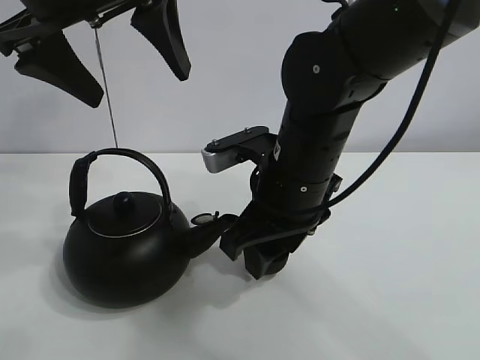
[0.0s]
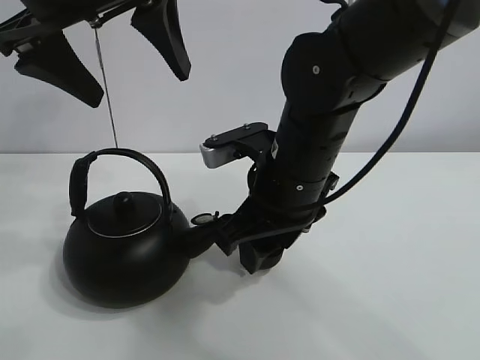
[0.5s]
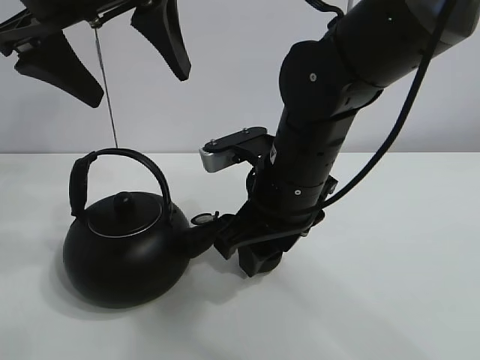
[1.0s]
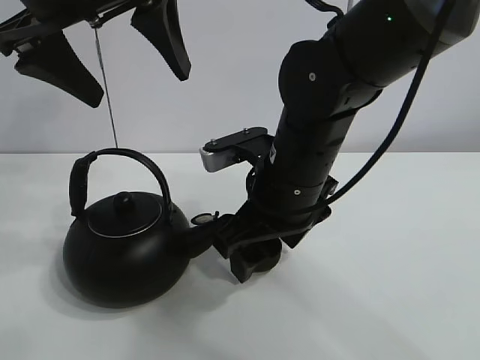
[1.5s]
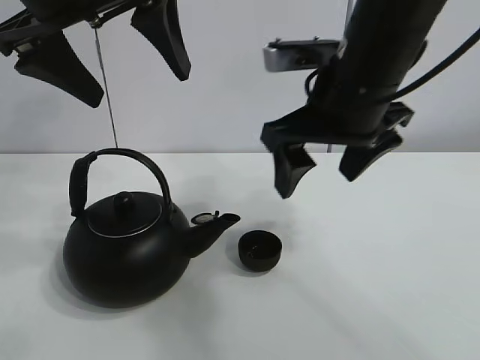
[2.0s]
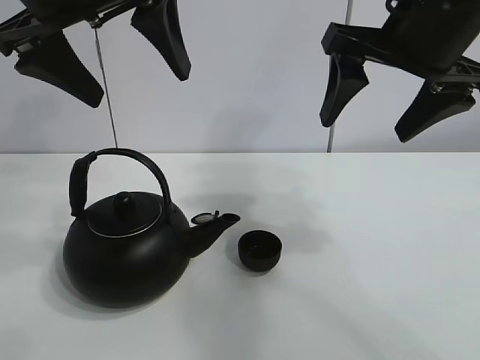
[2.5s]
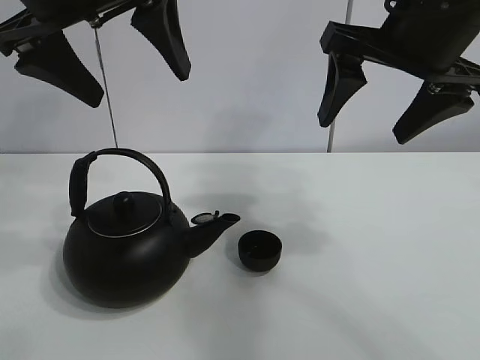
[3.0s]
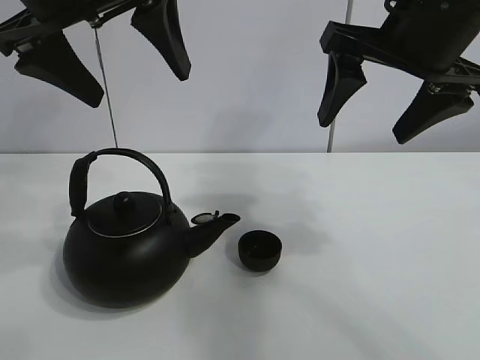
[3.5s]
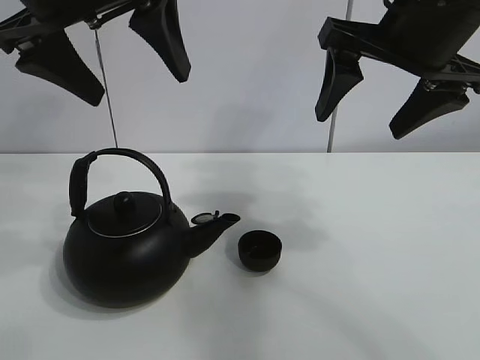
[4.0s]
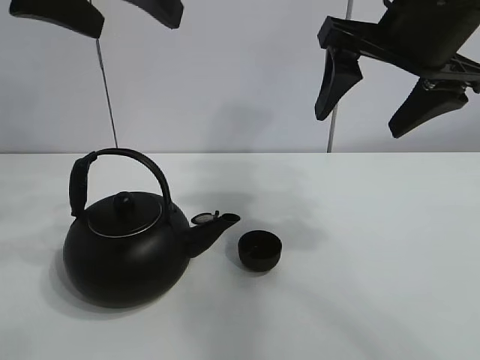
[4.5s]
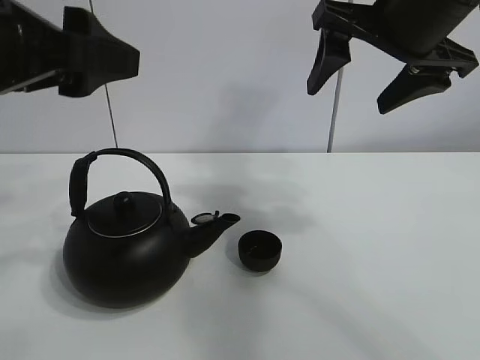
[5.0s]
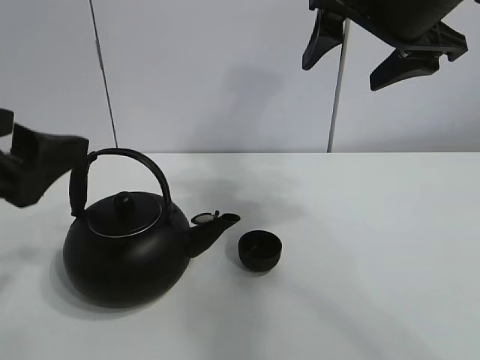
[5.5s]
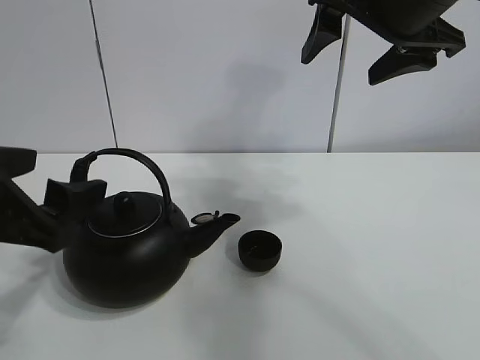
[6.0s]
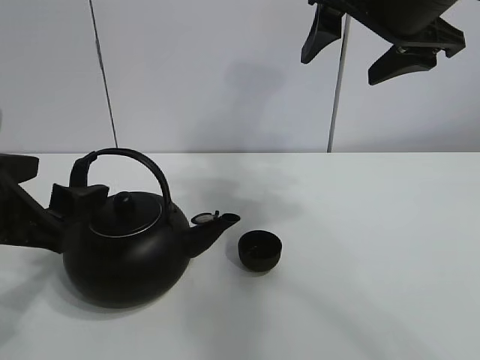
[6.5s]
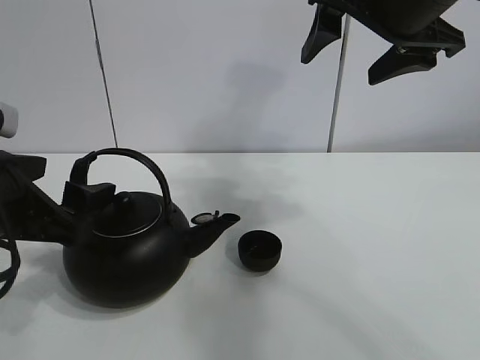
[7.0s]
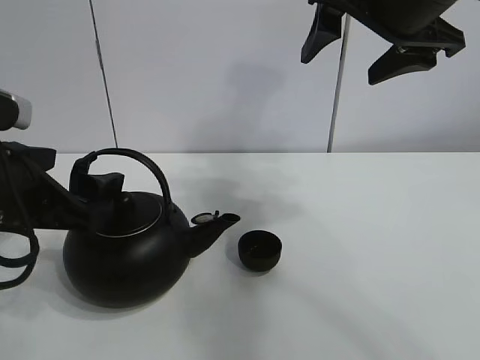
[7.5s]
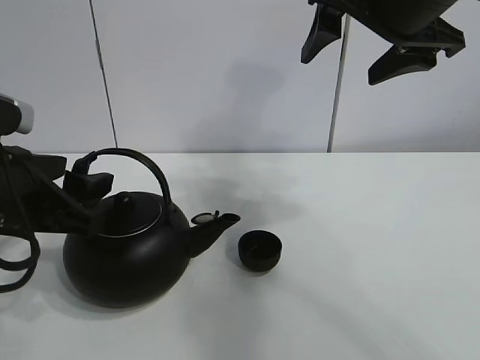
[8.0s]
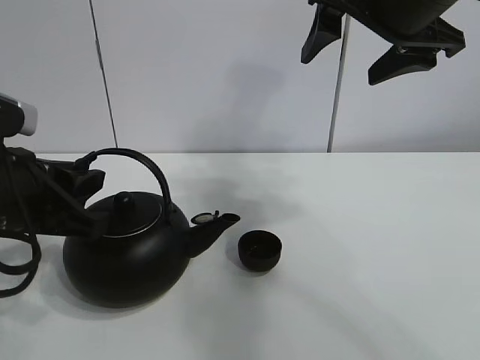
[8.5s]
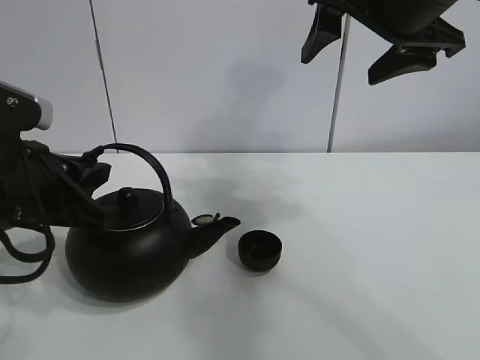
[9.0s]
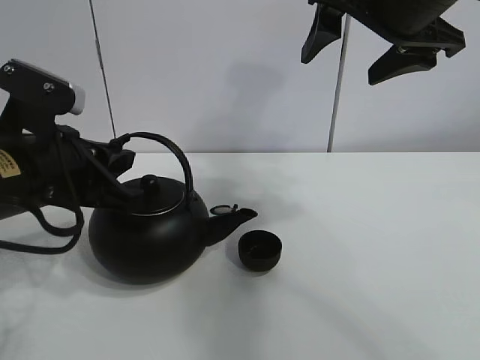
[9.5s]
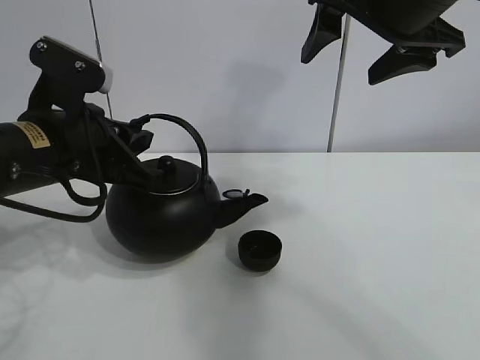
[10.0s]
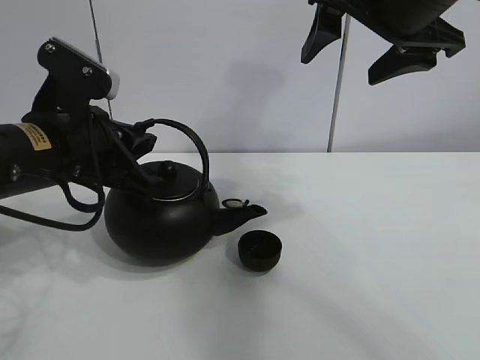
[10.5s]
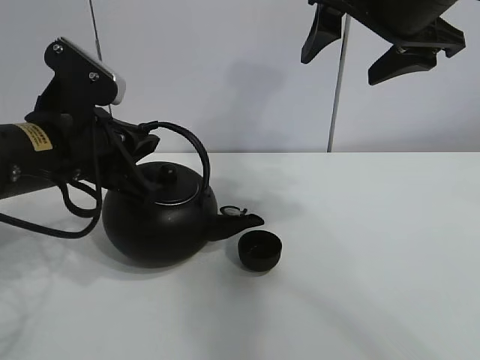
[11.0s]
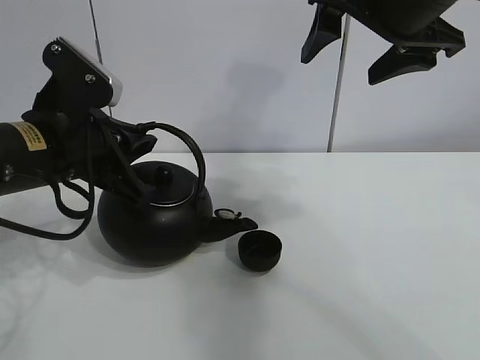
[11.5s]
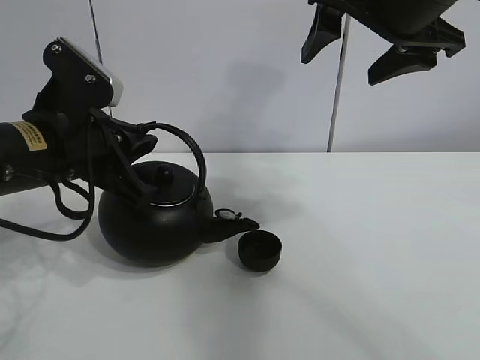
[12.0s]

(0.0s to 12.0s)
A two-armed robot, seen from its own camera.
Task of the whole recording: pour tea into the teacup.
Step, 2.0s - 8.5s: Pick up the teapot with the left gripper.
0.0s - 2.0s: The right gripper travels upward by roughly 10 cm, and opens.
2.0s - 4.0s: The right gripper shifts approximately 10 cm to the right and upward.
4.0s - 6.0s: The left gripper moves downward, backward and to the left, approximately 20 cm.
6.0s - 8.0s: The grippers move only a little.
8.0s - 10.0s: The left gripper heads forward, covering approximately 5 cm, and closes up.
10.0s - 12.0s: There are only small adjustments of the grippers.

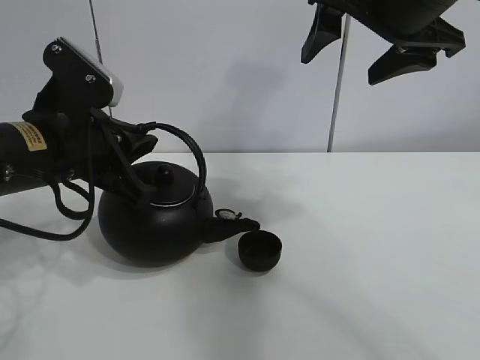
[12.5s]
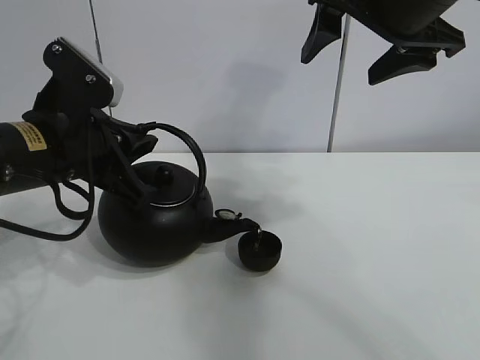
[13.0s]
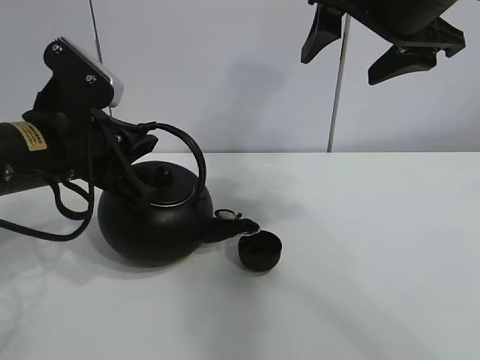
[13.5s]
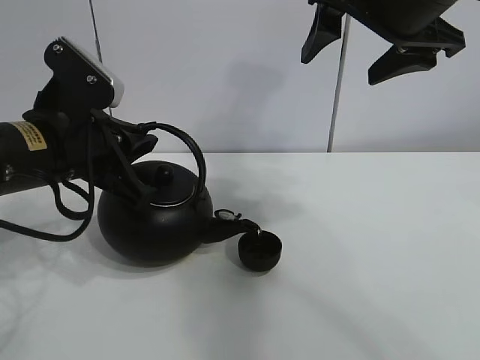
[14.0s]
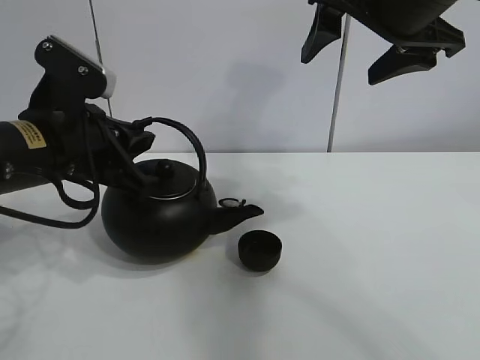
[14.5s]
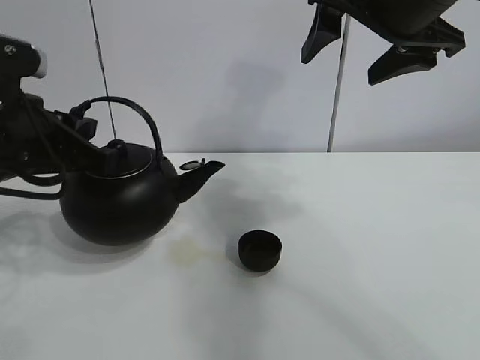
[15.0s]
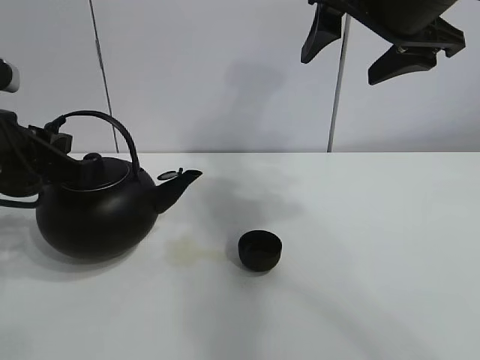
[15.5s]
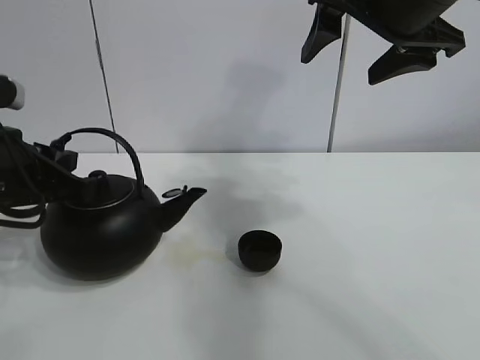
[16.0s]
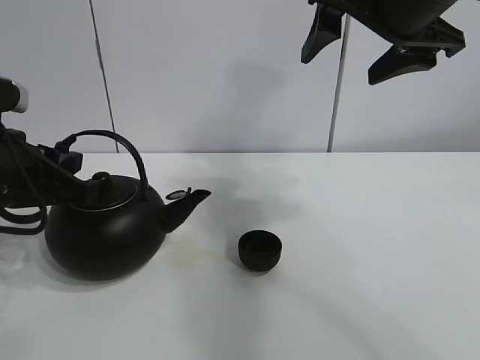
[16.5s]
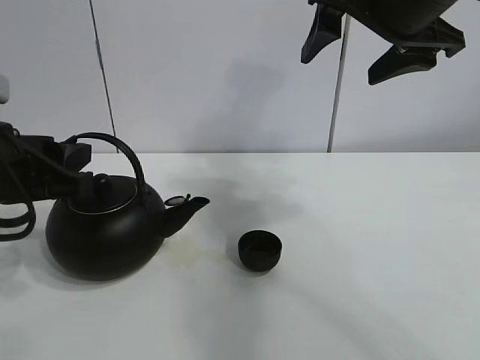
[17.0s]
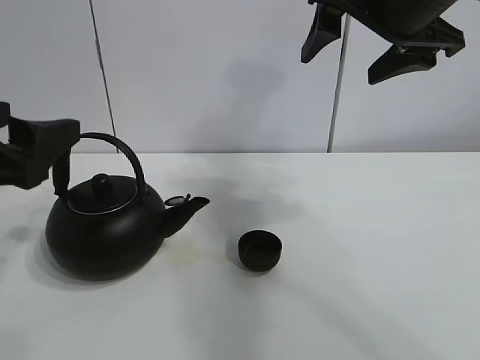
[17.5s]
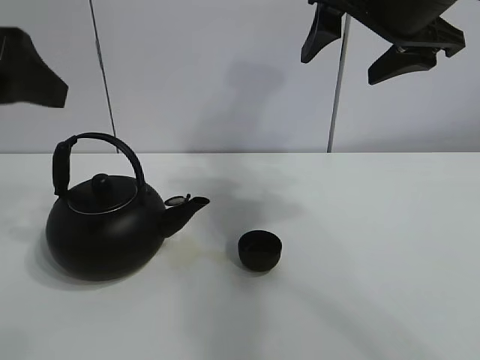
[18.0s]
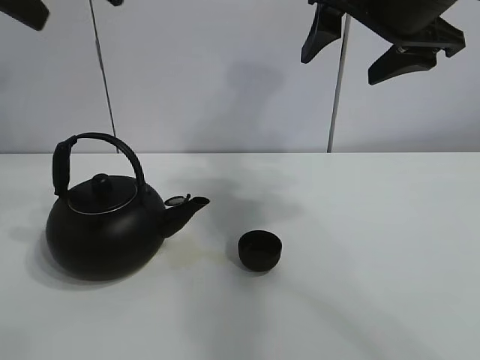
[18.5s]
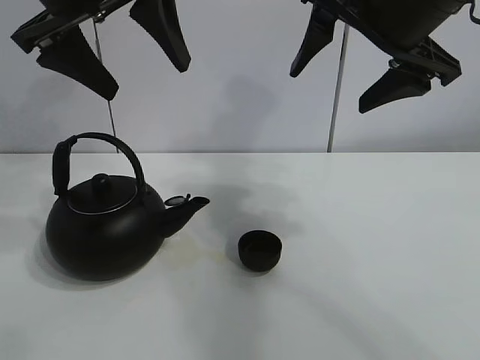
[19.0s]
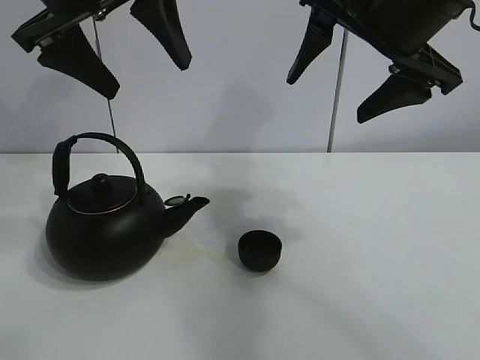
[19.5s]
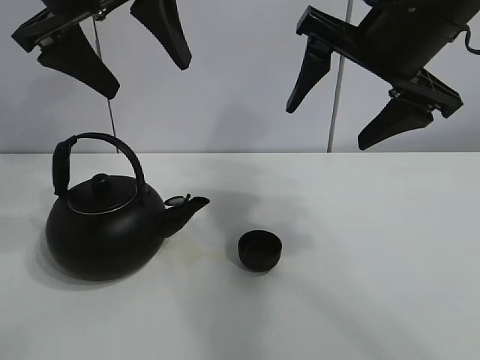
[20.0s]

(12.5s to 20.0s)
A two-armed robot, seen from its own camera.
Task of the whole recording: pour tea into the teacup.
Step, 12.5s - 14.5s: Pour tea into the teacup with the left gripper.
12.5s - 14.5s: The grippers stay close to where they were, moving slightly.
14.5s - 16.5s: The left gripper moves to the left, some 5 cm.
16.5s - 18.0s: The left gripper travels upward by about 15 cm, and opens up.
18.0s - 20.0s: The left gripper travels forward and to the right by some 15 cm.

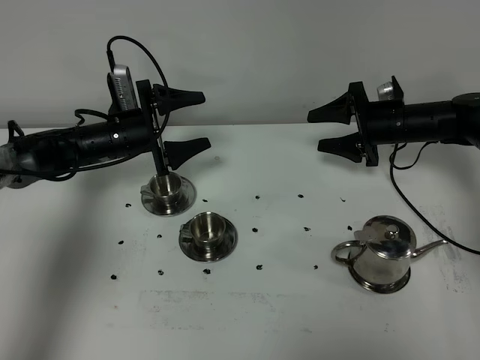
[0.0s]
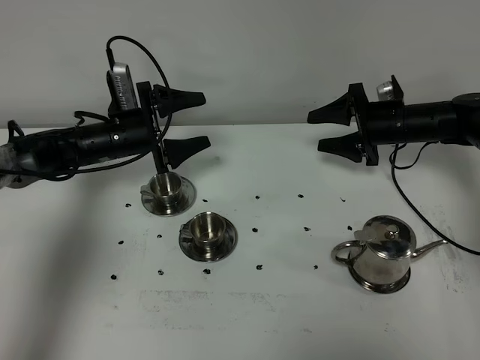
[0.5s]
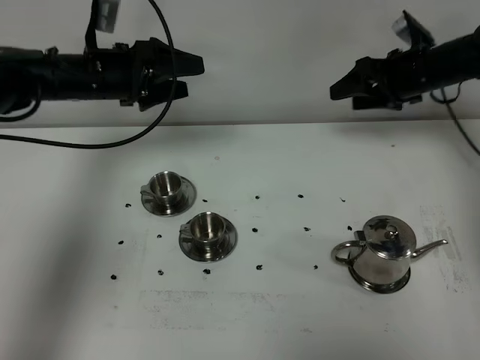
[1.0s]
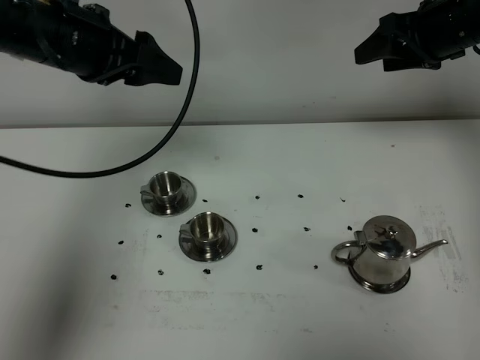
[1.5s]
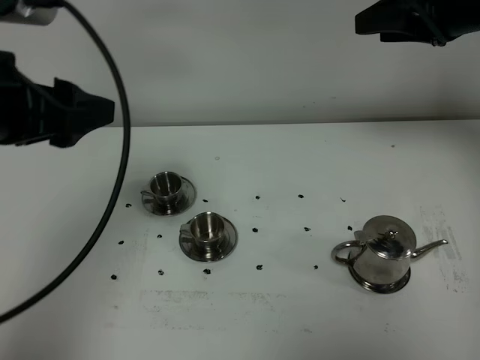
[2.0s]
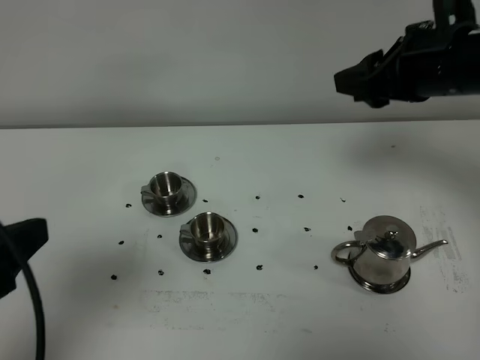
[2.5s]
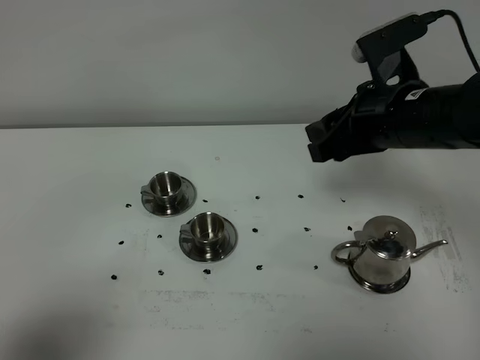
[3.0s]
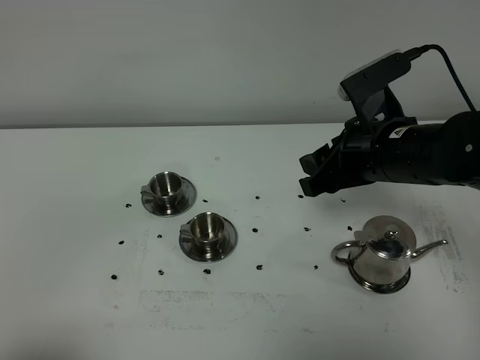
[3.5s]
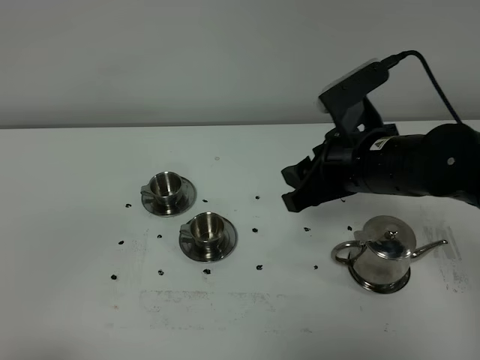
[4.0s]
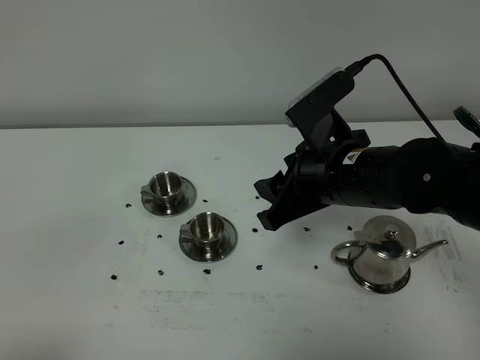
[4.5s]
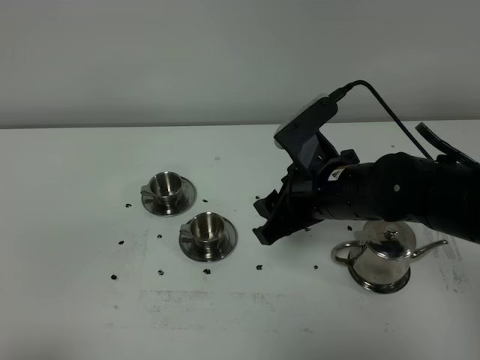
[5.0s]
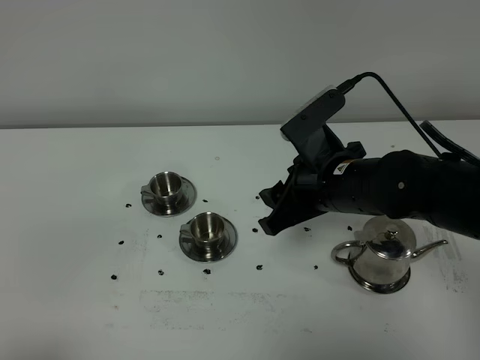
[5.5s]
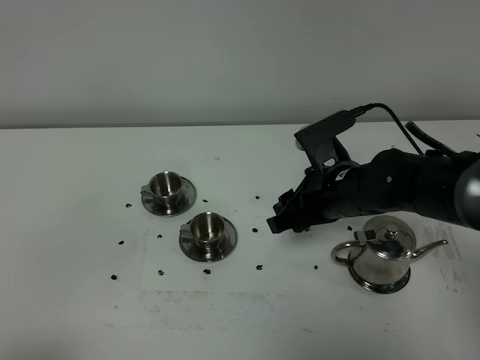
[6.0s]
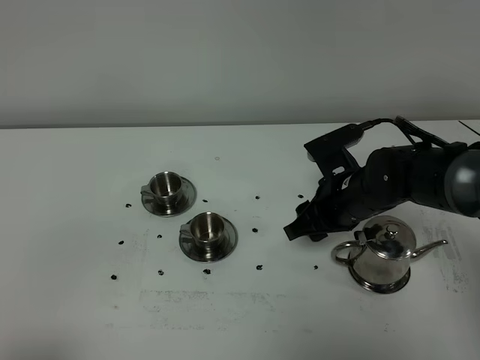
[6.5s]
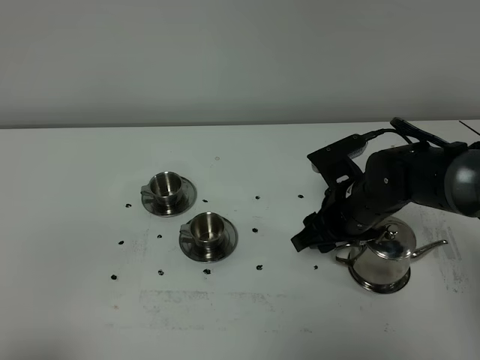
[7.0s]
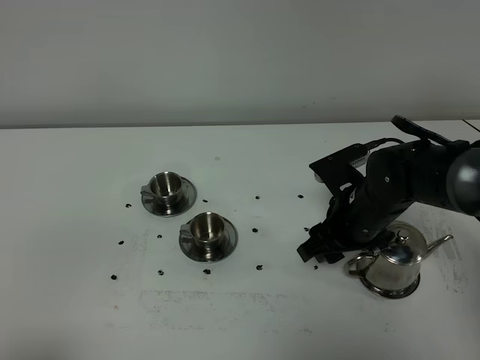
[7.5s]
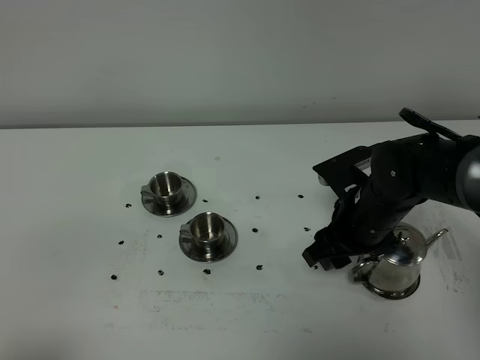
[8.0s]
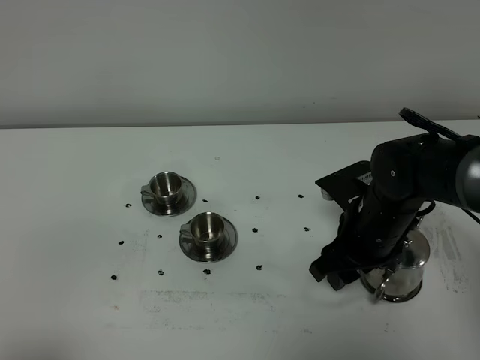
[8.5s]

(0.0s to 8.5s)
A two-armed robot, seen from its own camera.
Task of the whole recording: grasp the stainless steel teapot and pour the tea into the two stainless steel teacups one by one, put the stainless steel teapot back in its original place.
0.0s - 2.0s: Both grippers move upward and backward, some 30 cm.
2.0s - 4.0s: The right gripper shifts about 20 cm to the left, downward and backward. Meanwhile the left gripper goes about 30 cm backward and downward, and closes its fingers.
4.0s - 6.5s: The right gripper is displaced downward by approximately 10 cm.
